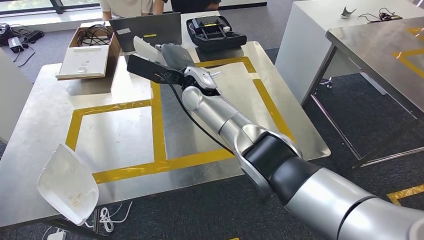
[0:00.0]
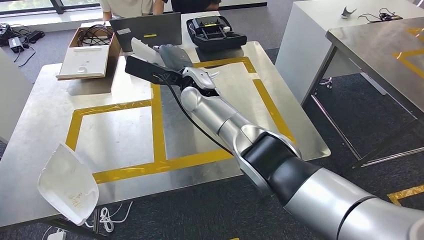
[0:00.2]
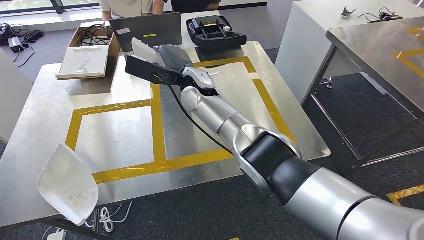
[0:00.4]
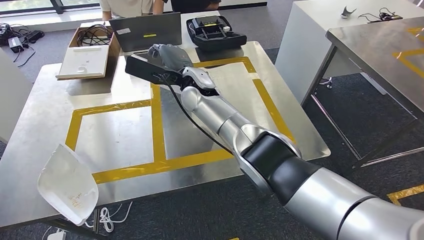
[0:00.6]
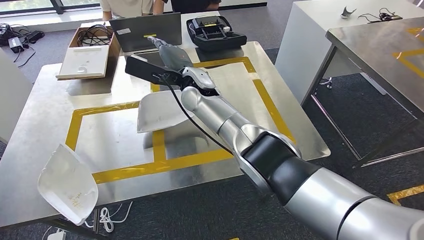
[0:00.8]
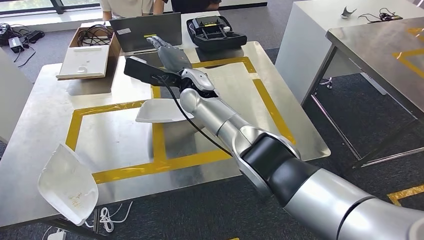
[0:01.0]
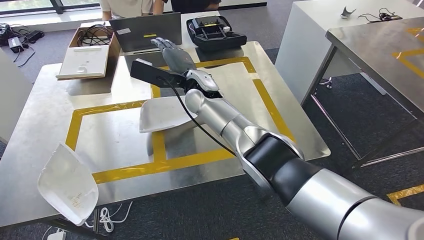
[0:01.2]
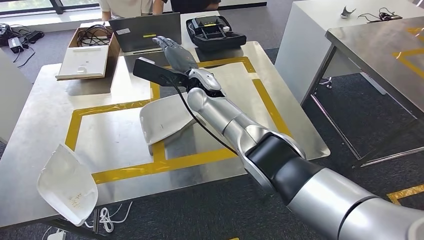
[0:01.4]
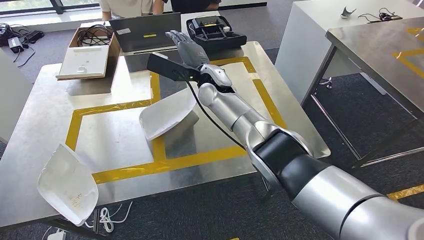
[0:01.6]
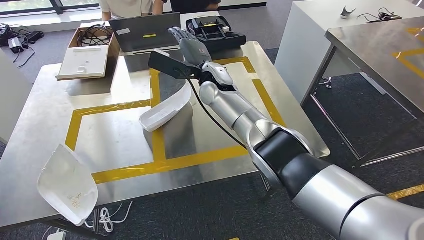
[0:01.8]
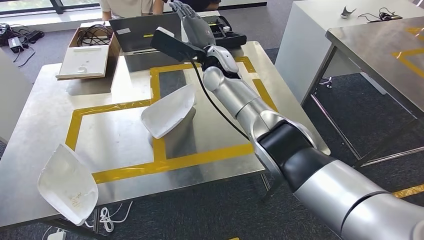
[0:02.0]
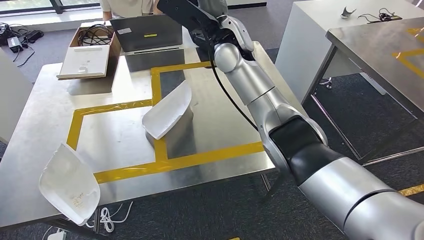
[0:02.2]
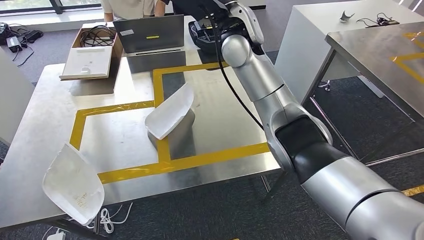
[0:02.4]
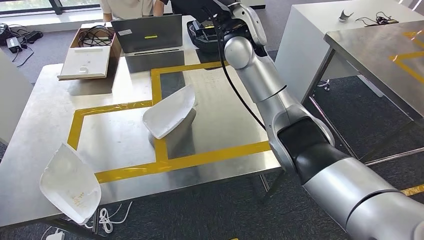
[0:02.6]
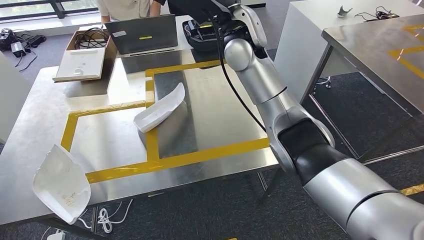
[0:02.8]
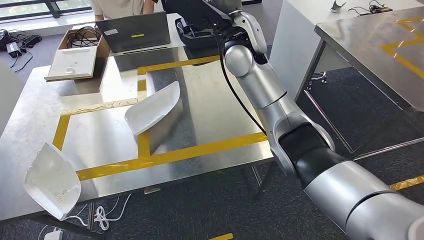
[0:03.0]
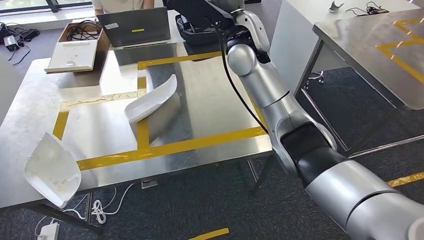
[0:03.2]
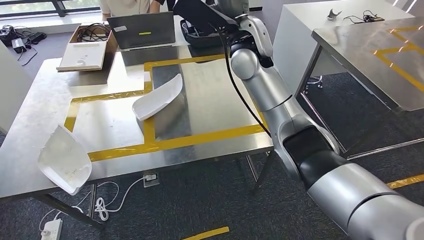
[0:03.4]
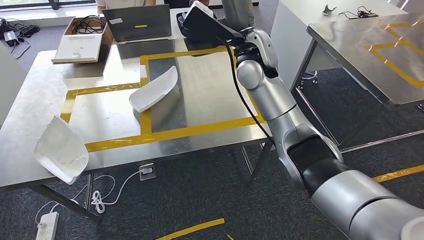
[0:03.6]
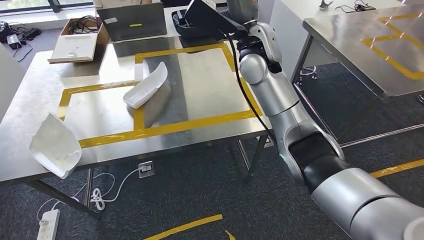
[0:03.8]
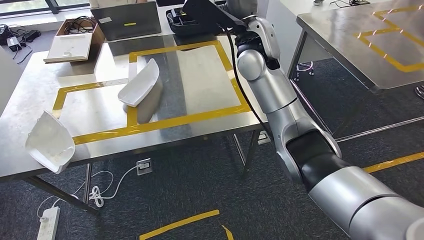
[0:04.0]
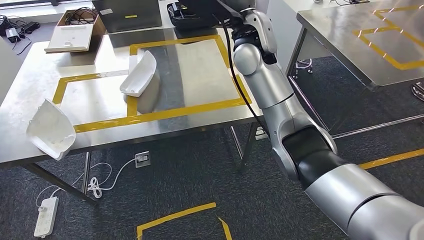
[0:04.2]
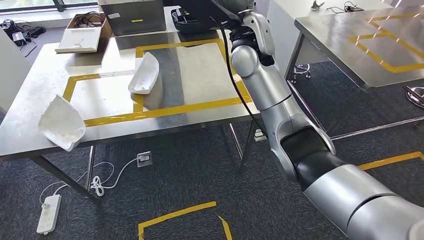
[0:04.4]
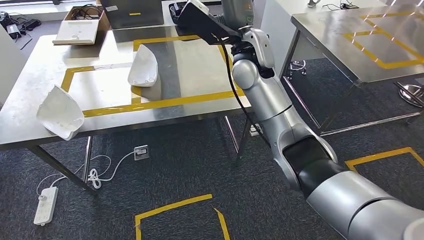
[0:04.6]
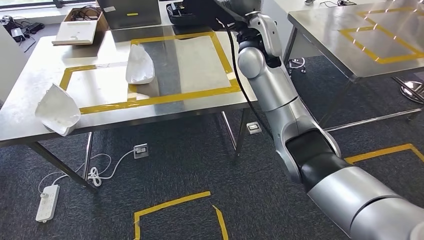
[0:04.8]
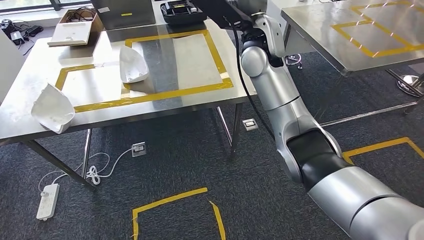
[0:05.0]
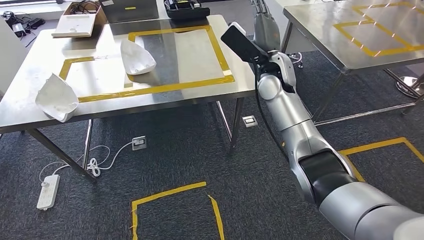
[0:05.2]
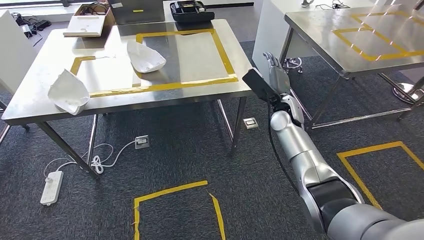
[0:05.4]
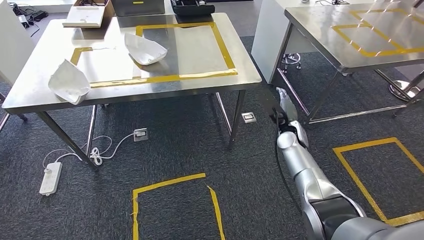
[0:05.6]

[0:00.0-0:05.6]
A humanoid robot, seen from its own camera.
Step, 0:00.0 to 0:03.4: Insert the small component into the corresponding slot on the workbench.
Step, 0:03.6 to 0:05.6: Return to the initial position at the workbench.
0:00.0 to 0:01.4: The hands move only a little.
